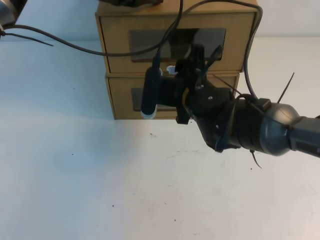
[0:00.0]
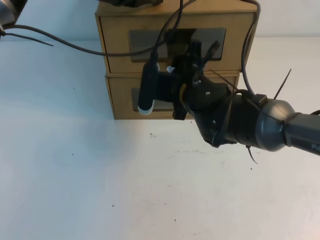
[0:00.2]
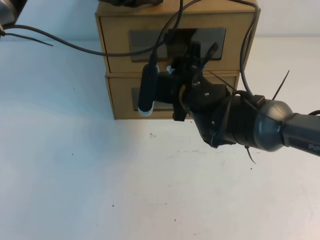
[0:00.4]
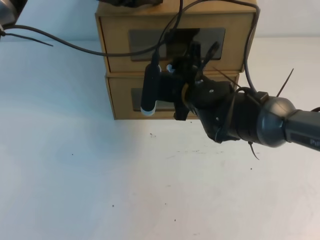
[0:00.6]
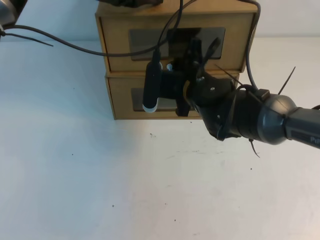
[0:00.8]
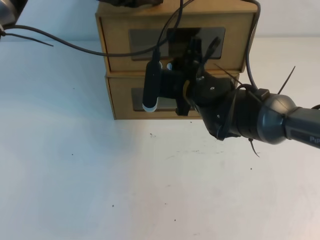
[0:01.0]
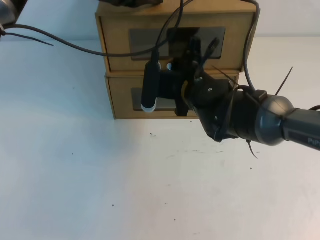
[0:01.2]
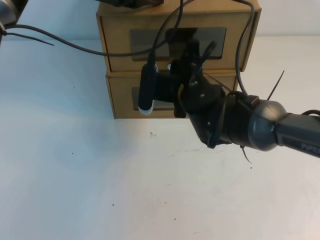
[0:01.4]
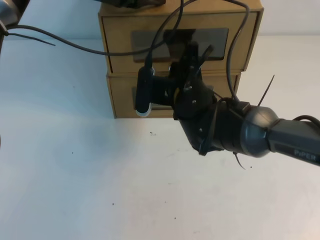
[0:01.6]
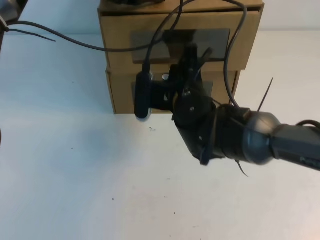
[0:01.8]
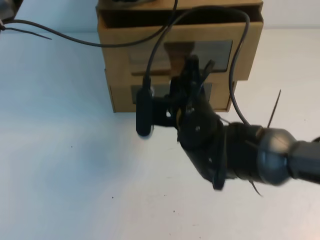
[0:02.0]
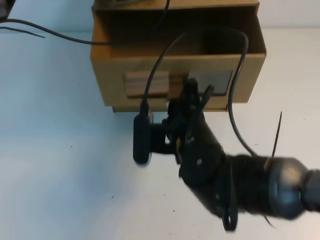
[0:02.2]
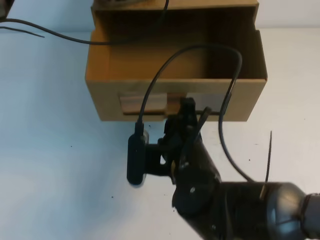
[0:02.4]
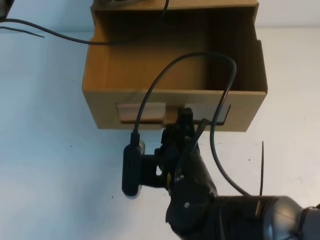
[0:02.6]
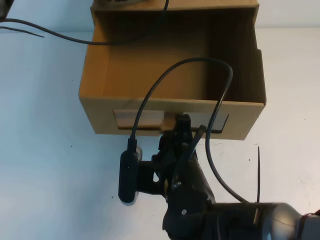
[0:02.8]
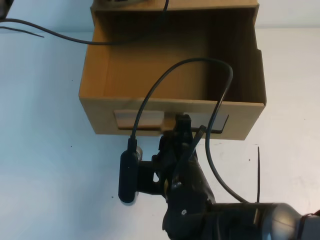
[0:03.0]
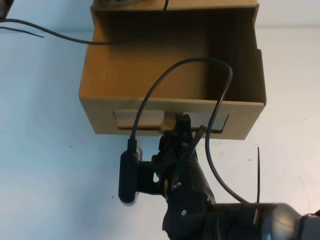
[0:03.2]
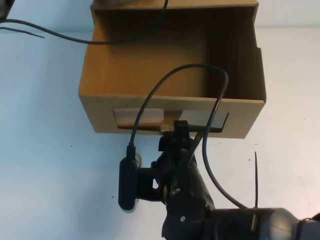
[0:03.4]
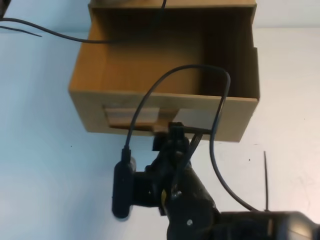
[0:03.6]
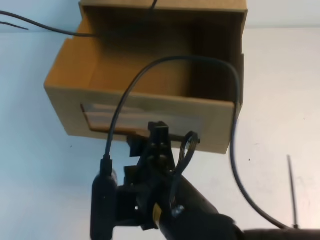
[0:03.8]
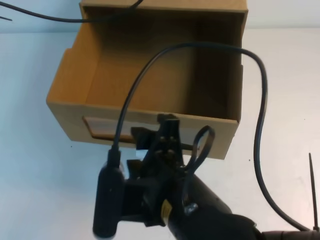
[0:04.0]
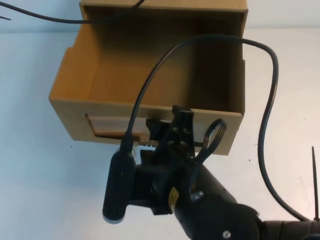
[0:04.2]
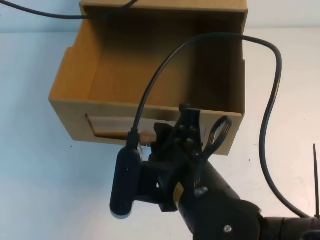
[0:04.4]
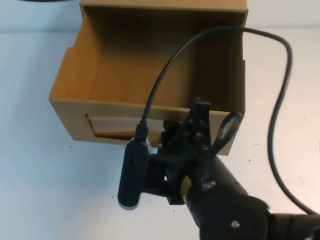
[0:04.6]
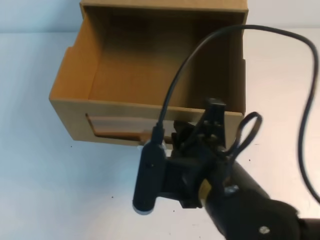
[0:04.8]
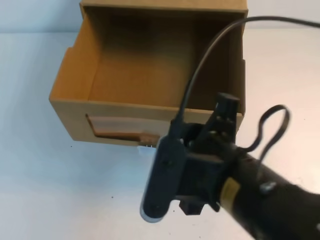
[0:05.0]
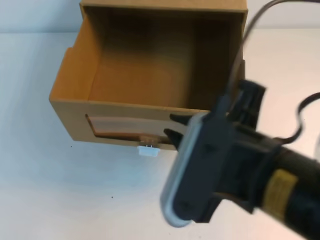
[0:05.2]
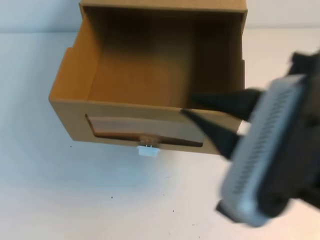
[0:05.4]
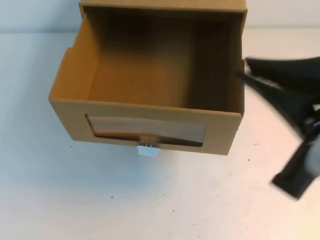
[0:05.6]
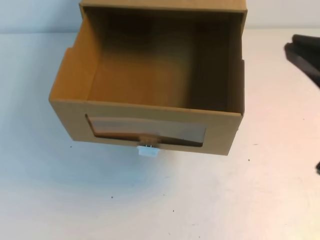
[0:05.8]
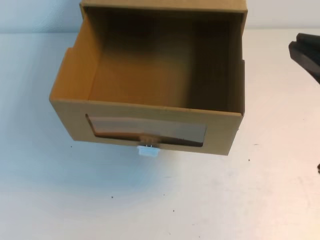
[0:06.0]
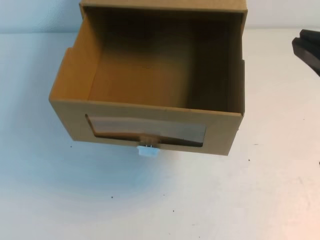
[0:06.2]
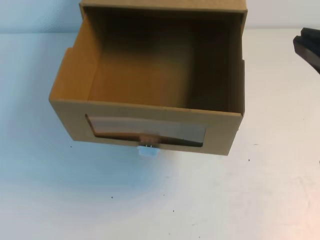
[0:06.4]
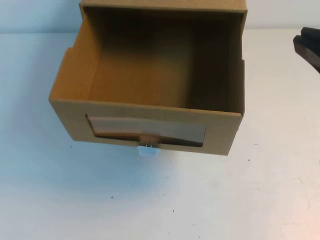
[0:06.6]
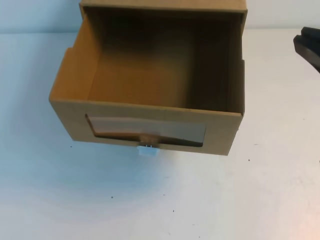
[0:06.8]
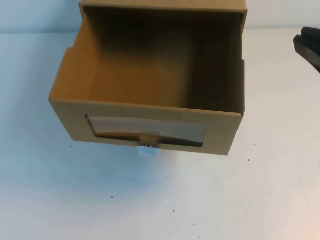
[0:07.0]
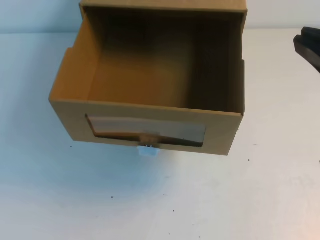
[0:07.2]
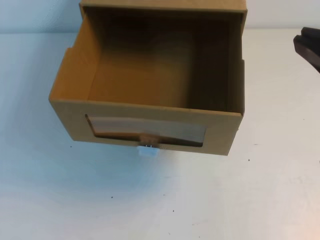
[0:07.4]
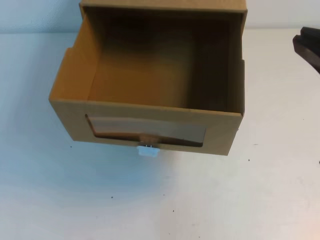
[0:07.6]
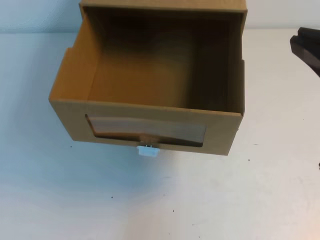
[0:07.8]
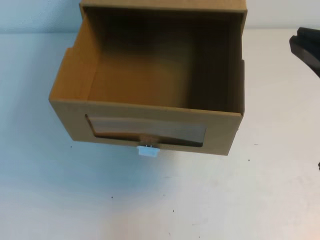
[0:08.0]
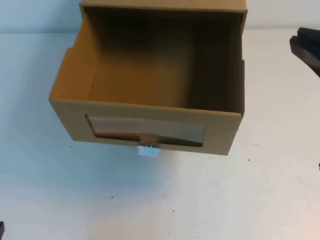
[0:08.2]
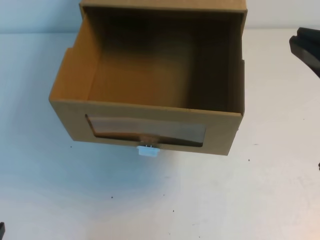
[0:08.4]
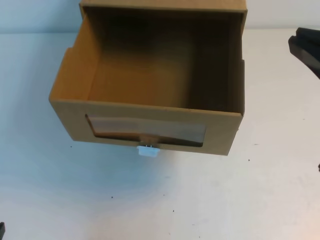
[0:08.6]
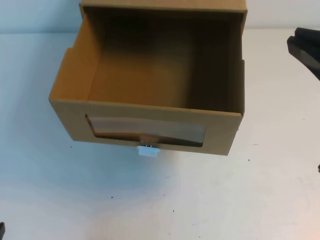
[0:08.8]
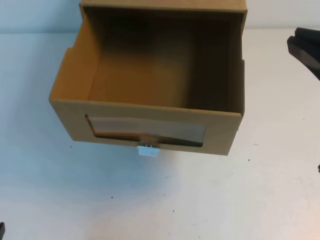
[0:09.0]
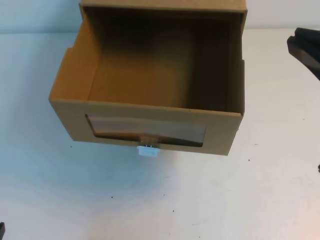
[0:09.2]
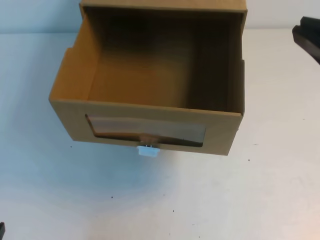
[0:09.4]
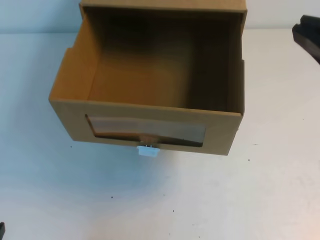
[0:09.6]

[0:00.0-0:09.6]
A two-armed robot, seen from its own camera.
Task of the whole recording: open the shoebox on the table.
0:00.0 to 0:01.6: The right gripper closes its fingers.
0:01.6 to 0:03.2: The right gripper heads backward, covering approximately 15 cm.
0:03.2 to 0:04.8: The right gripper goes some 10 cm upward, and opens and closes again, while the left gripper goes about 20 cm upward and backward.
0:04.8 to 0:06.4: The right gripper goes approximately 20 cm to the right, upward and backward; the left gripper goes some 35 cm backward and downward.
0:06.4 to 0:08.0: The left gripper shifts some 15 cm downward.
0:08.0 to 0:09.6: The grippers move only a little.

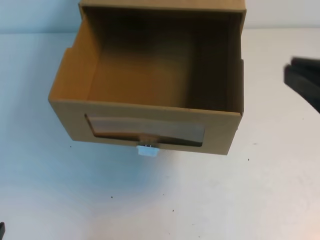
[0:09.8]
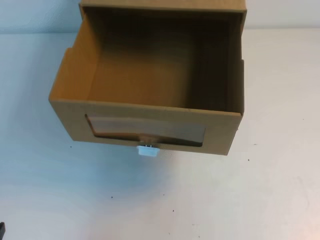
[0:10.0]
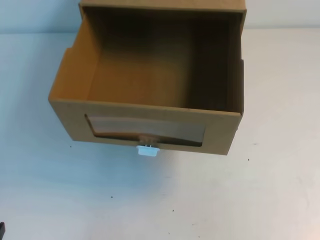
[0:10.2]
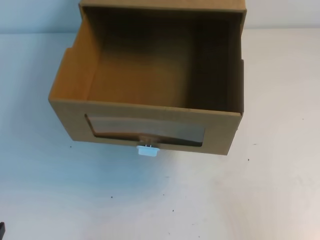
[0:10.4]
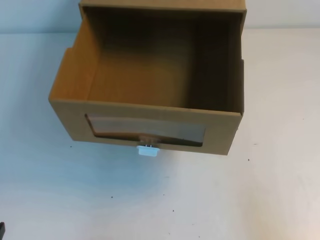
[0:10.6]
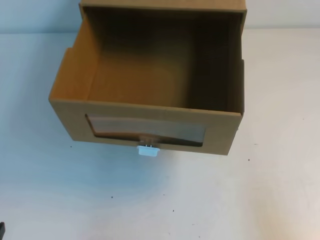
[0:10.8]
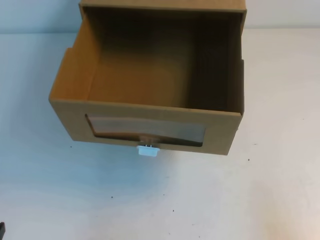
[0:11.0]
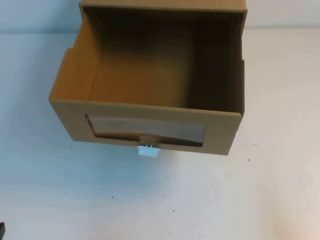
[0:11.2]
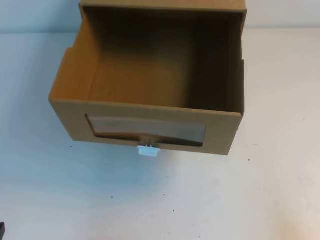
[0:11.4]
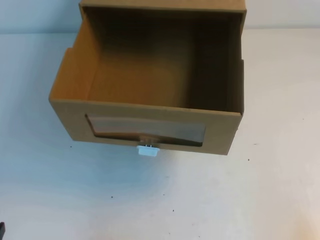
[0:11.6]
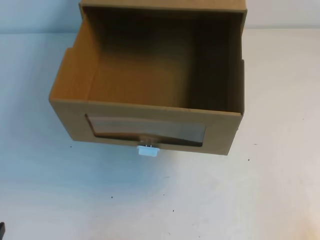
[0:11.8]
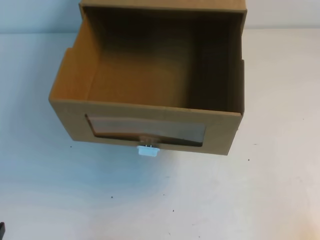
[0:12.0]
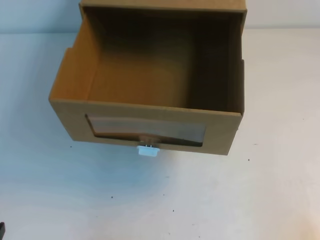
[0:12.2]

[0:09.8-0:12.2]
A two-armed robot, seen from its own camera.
Task of the whole recording: open the shoebox on the table.
Step, 0:09.8 to 0:12.2: Open the shoe box.
0:09.8 to 0:11.0: The right gripper goes approximately 20 cm downward and to the right.

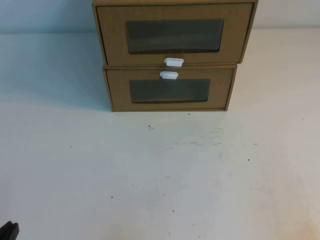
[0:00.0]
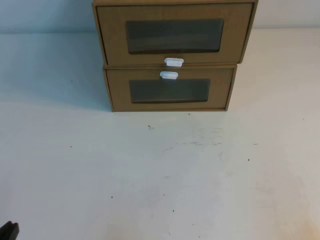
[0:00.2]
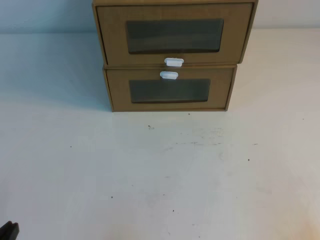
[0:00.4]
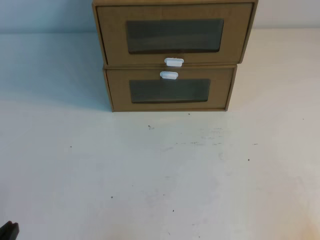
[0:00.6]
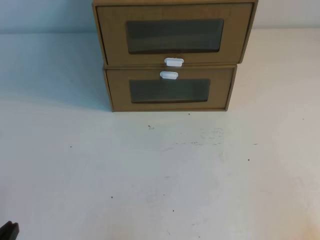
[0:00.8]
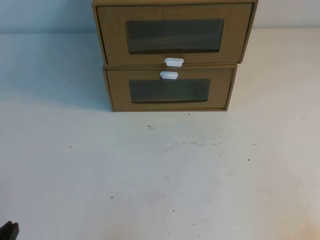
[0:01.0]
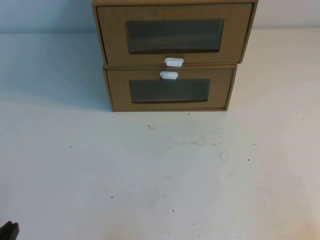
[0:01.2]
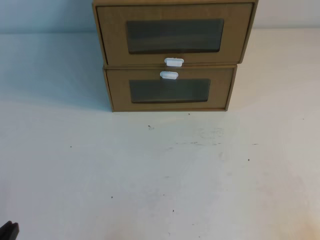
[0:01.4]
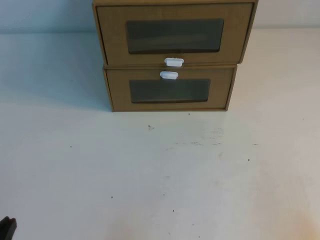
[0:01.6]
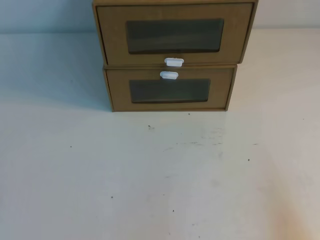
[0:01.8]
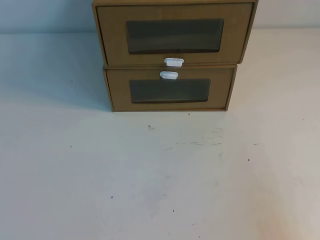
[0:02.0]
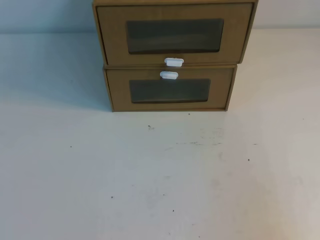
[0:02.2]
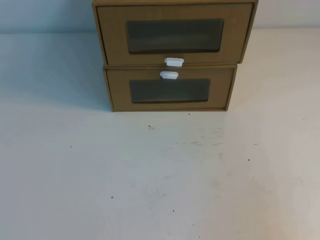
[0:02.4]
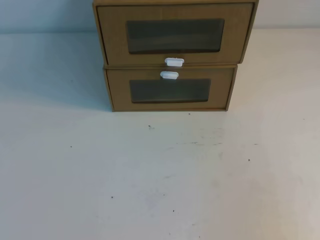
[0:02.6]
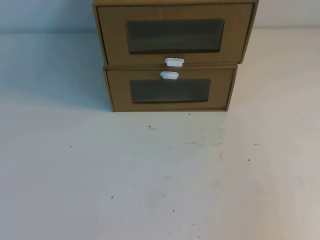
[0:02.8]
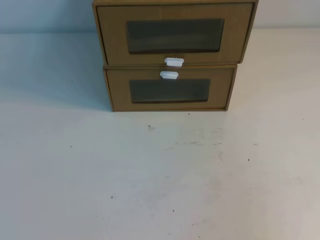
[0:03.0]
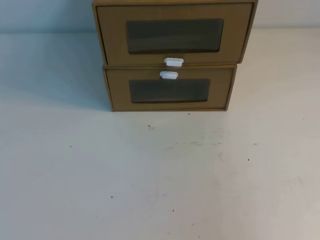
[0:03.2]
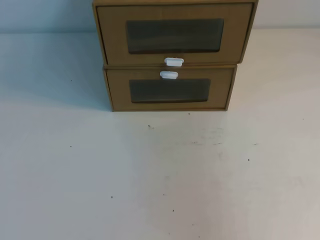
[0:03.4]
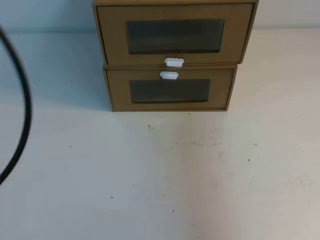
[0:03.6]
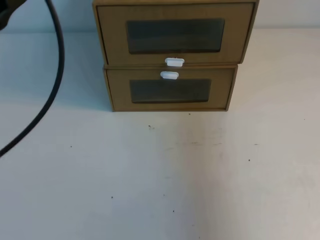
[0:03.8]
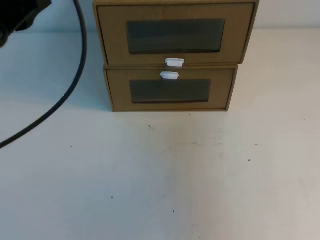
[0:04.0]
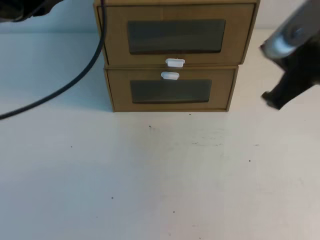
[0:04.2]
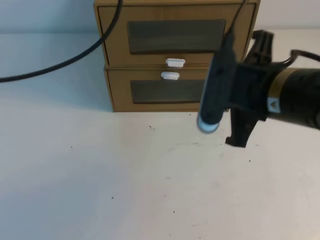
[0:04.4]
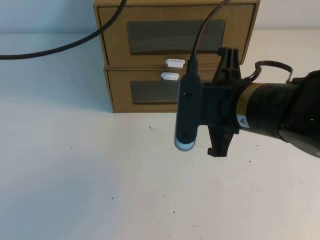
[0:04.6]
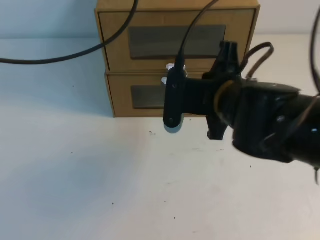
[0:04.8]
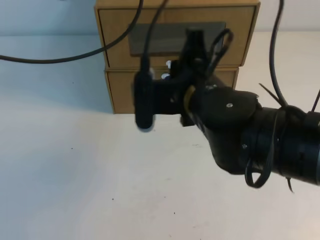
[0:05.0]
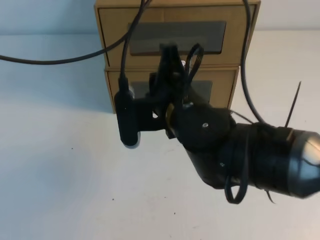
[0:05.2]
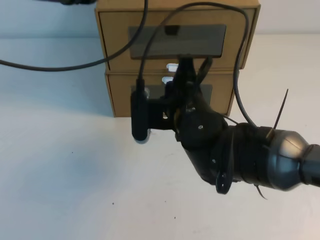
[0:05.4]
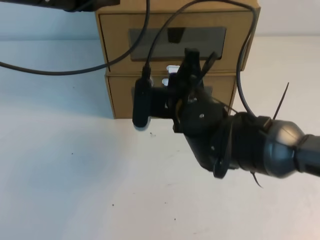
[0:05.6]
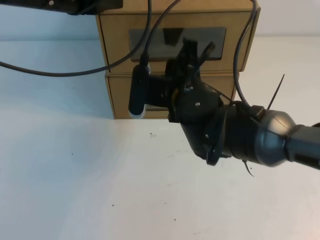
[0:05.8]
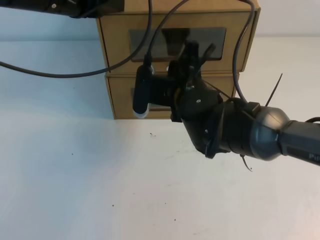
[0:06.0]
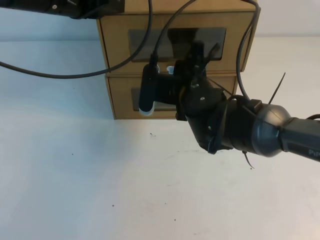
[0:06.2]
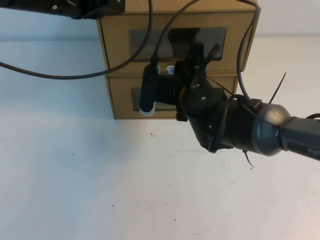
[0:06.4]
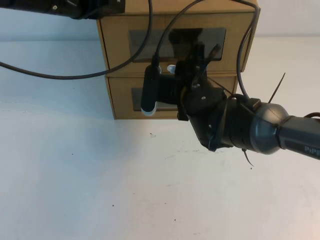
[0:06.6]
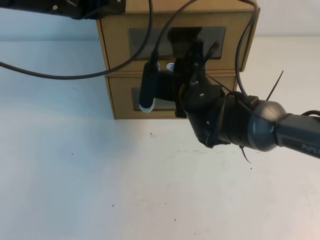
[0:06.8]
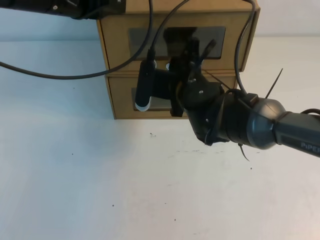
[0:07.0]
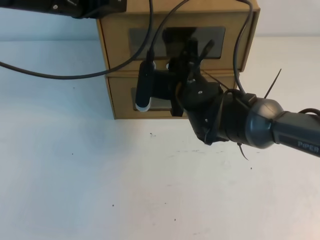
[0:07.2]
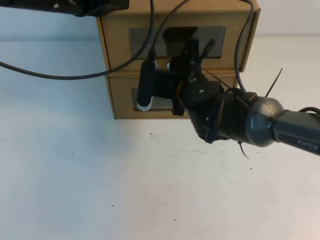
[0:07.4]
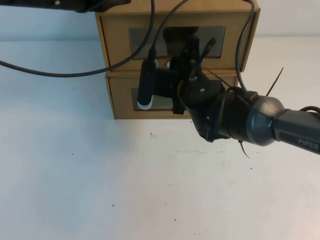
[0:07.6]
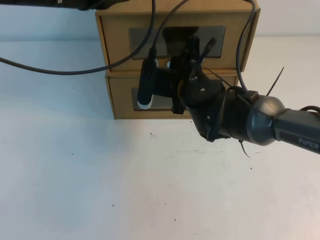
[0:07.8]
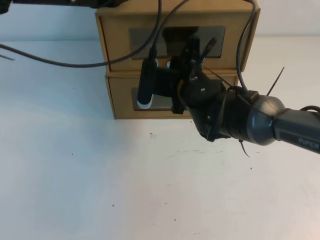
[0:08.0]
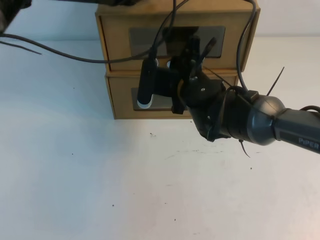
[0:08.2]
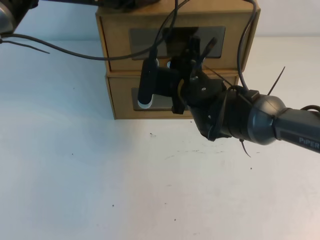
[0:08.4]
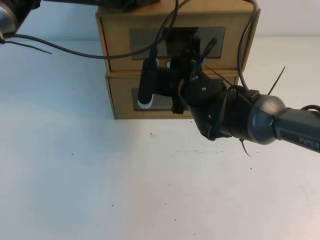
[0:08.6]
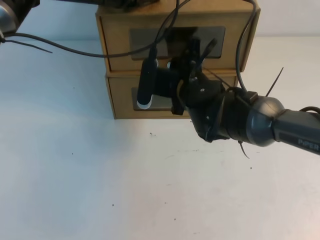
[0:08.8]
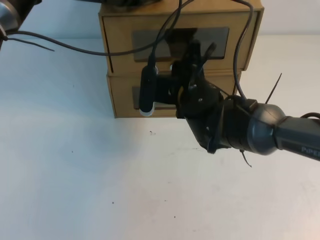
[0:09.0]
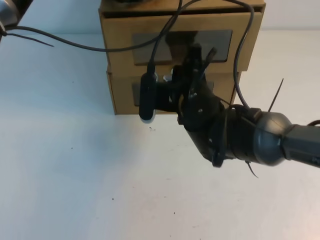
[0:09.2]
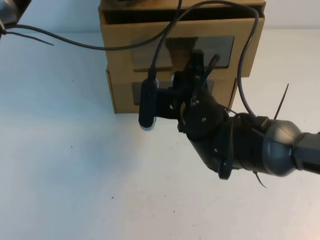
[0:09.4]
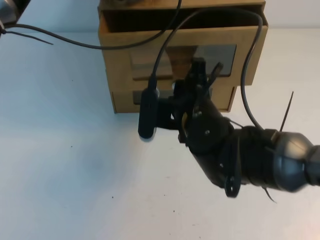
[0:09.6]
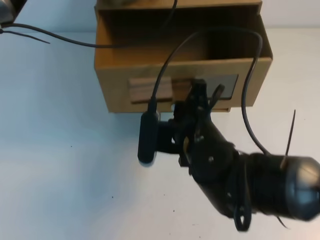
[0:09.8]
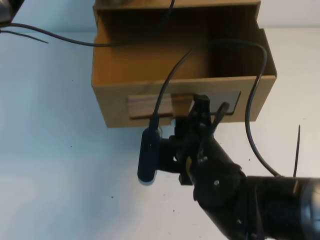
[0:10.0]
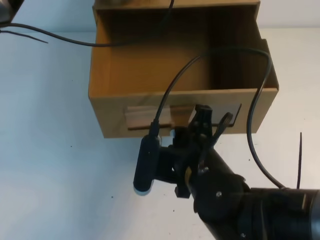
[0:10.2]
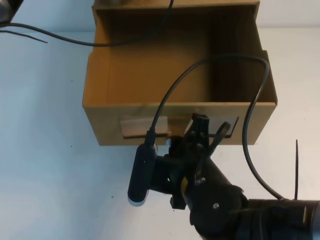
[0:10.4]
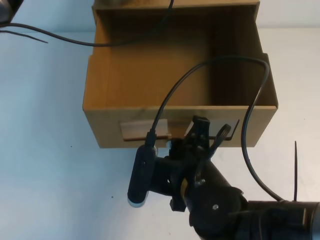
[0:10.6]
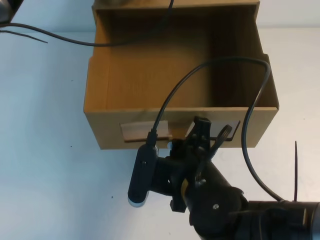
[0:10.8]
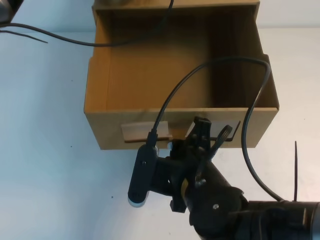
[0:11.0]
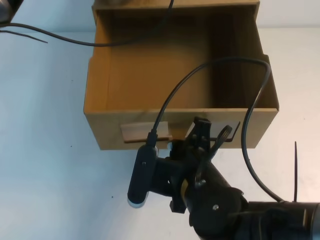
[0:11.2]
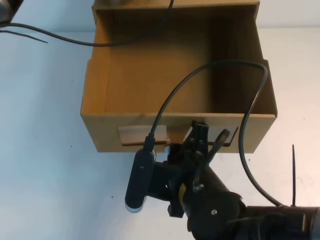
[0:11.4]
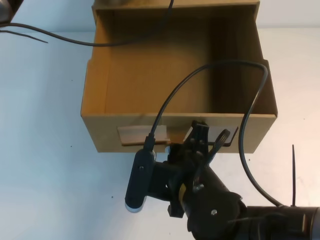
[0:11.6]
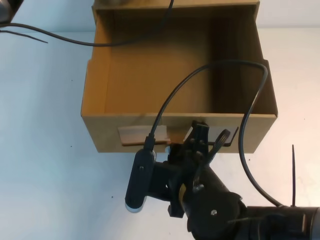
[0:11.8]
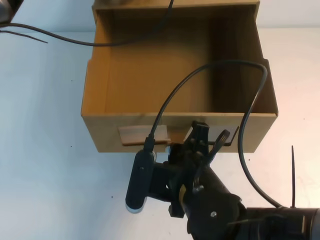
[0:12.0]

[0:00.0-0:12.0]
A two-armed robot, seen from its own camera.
Task of the whole recording: open the shoebox on the table.
0:00.0 to 0:01.6: Both grippers stay put.
0:03.0 to 0:04.4: The right gripper is displaced forward and to the left by some 30 cm. The left gripper is displaced forward by about 30 cm.
0:04.4 to 0:06.0: The right gripper shifts some 15 cm to the left, forward and downward, and opens its fingers; the left gripper heads forward, covering about 10 cm.
0:06.0 to 0:07.6: The grippers move only a little.
0:07.6 to 0:09.0: The left gripper travels forward by approximately 10 cm.
0:09.0 to 0:10.4: The right gripper shifts approximately 15 cm backward.
